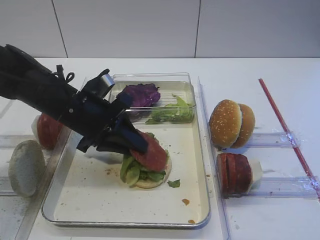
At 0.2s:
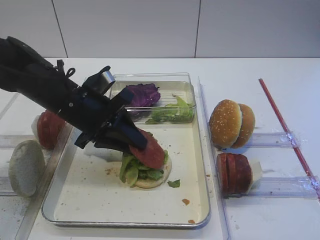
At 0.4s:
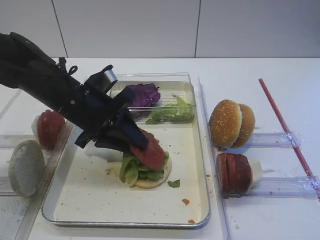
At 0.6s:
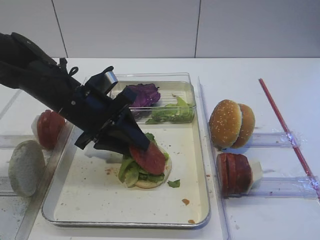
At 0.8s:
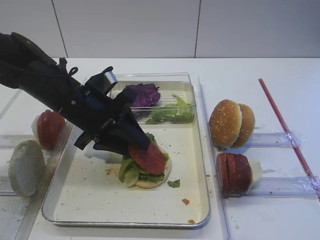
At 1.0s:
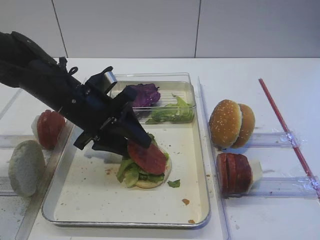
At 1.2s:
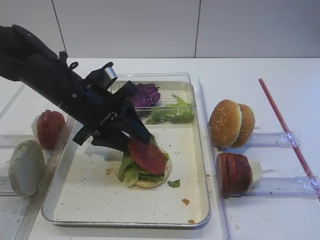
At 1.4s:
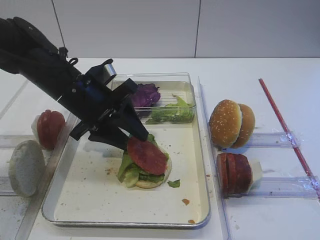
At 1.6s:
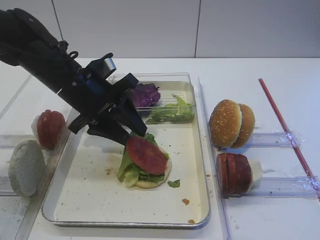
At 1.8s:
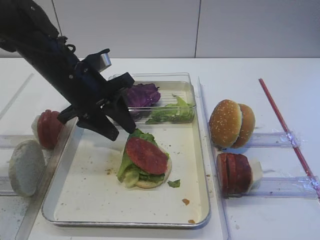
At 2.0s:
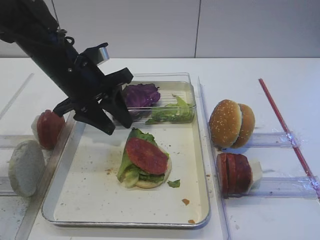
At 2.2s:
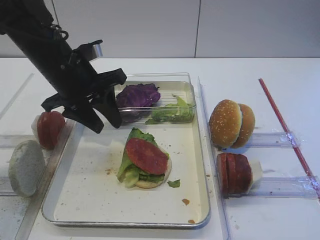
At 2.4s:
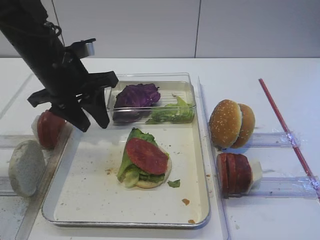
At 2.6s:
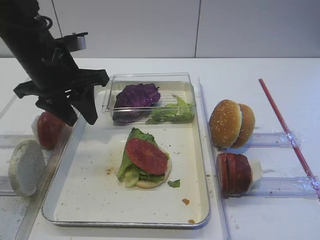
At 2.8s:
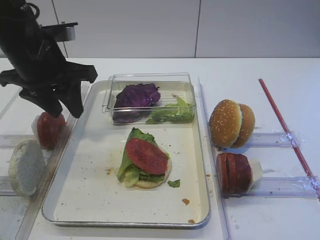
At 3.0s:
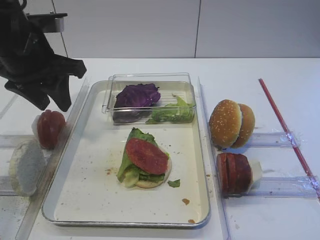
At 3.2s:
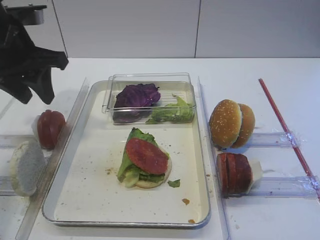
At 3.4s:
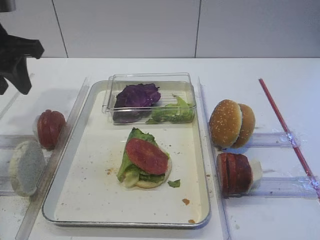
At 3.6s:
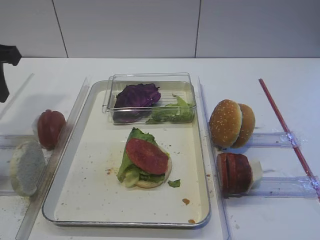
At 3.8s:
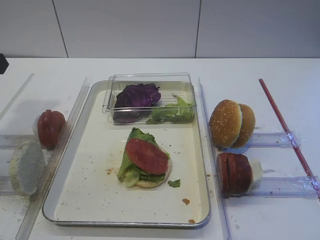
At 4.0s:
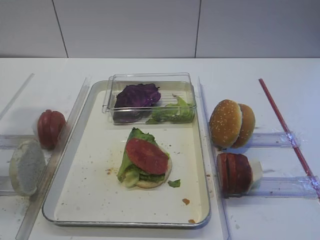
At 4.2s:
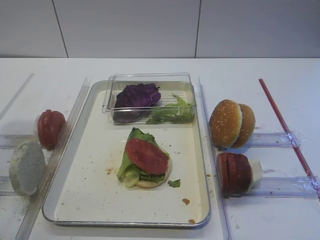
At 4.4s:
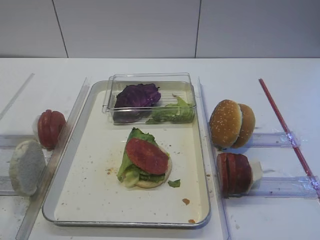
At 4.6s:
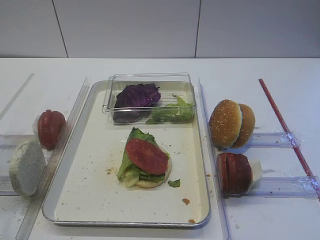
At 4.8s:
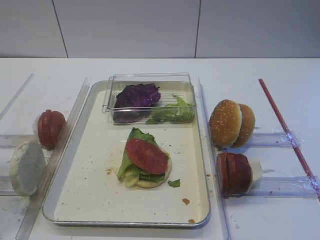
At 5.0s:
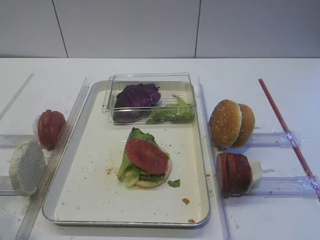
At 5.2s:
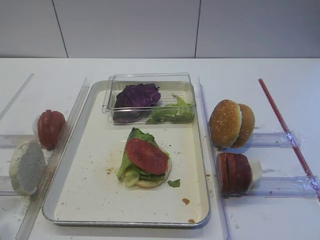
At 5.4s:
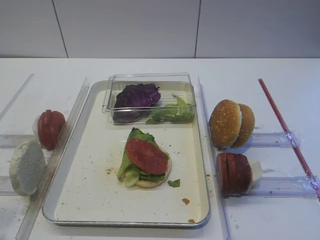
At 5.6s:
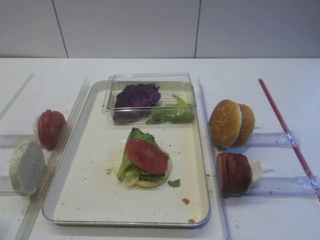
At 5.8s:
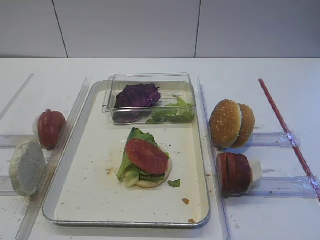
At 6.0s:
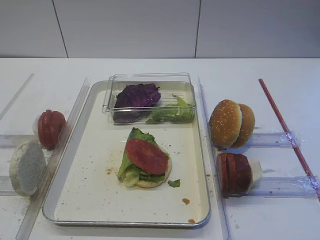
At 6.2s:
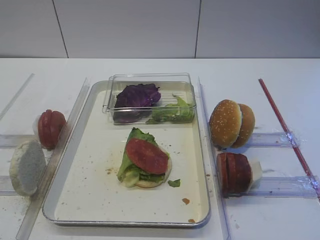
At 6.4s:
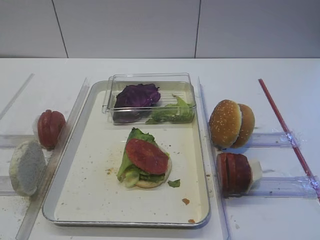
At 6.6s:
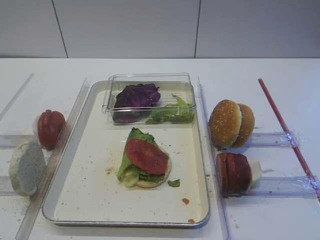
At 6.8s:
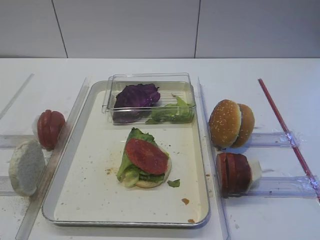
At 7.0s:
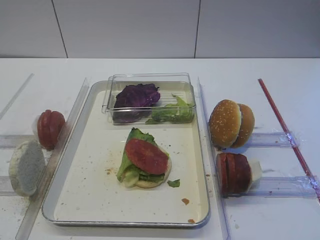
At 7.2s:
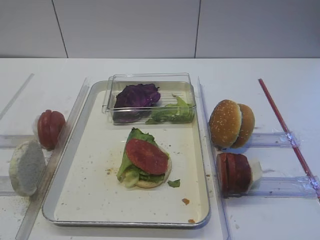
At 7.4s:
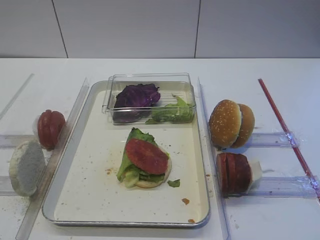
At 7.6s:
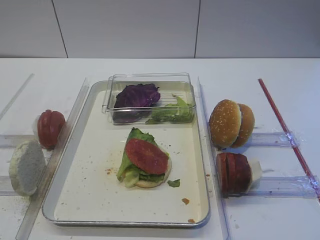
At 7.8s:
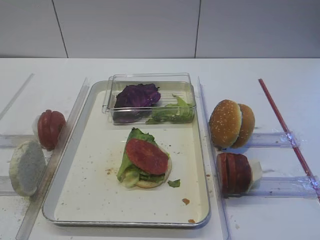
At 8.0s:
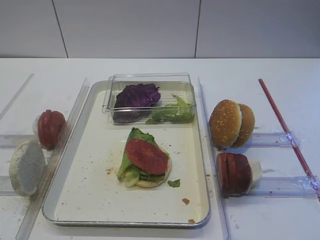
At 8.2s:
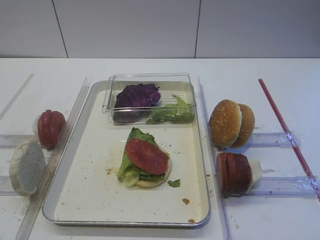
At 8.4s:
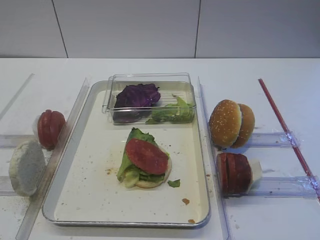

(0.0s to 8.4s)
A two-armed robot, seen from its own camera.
Step, 0.0s - 2.0s: Place the tomato slice on the lettuce leaf with the left gripper.
0.0s - 1.4s: The left gripper opens its fingers.
1.4s - 2.8s: The left gripper moves upward and to the left, roughly 10 cm.
2.8s - 4.2s: The left gripper is displaced backward and to the left by approximately 15 cm.
4.2s - 5.6s: The left gripper travels backward by approximately 15 cm.

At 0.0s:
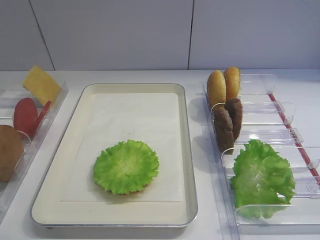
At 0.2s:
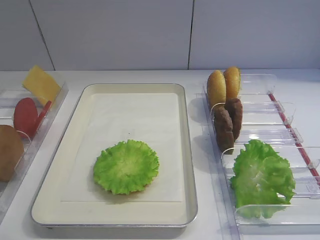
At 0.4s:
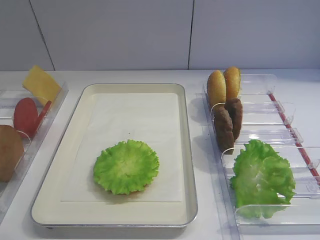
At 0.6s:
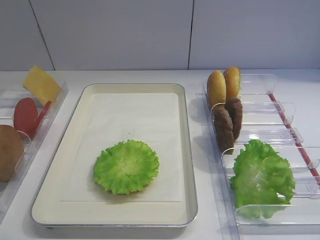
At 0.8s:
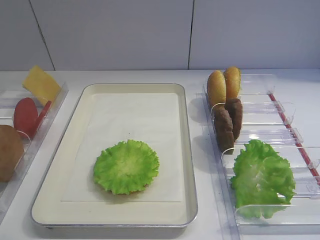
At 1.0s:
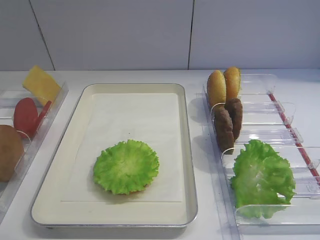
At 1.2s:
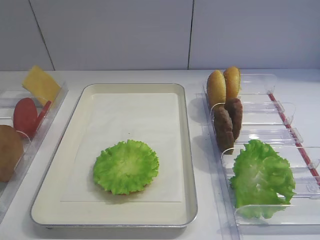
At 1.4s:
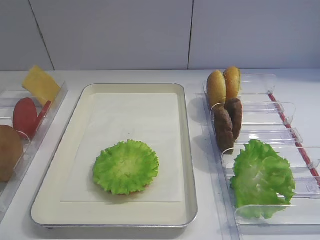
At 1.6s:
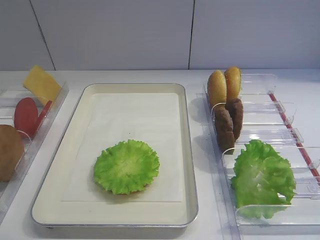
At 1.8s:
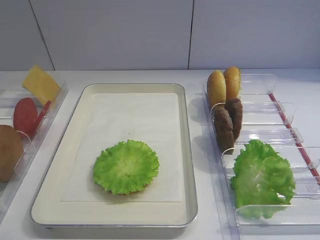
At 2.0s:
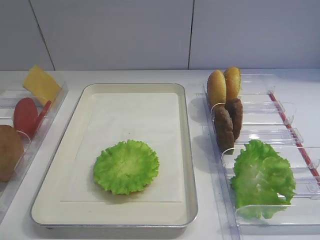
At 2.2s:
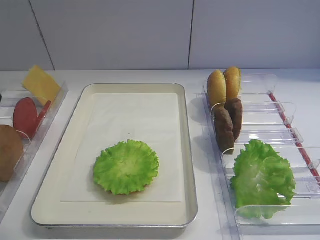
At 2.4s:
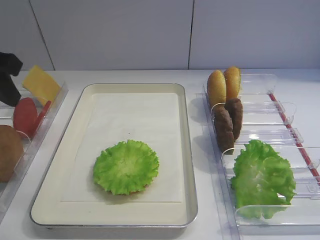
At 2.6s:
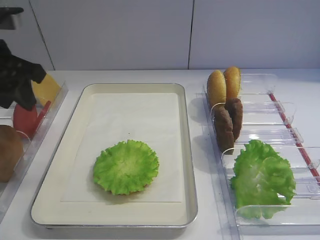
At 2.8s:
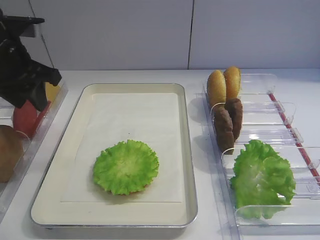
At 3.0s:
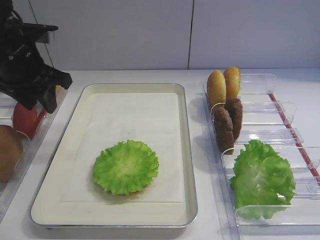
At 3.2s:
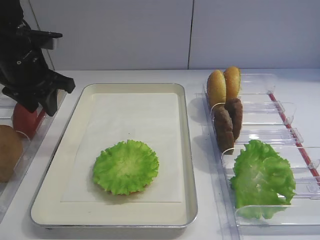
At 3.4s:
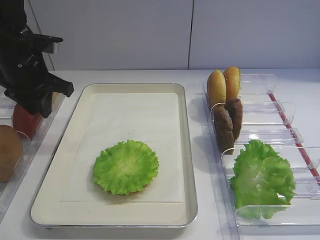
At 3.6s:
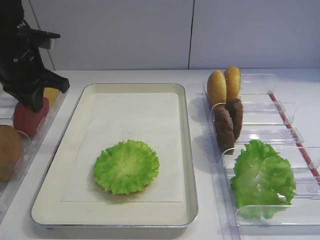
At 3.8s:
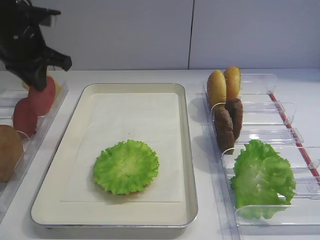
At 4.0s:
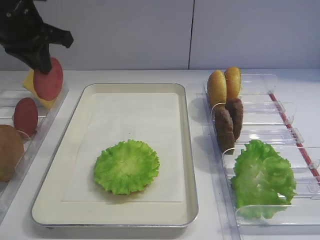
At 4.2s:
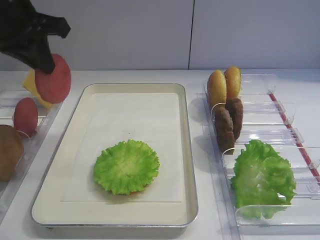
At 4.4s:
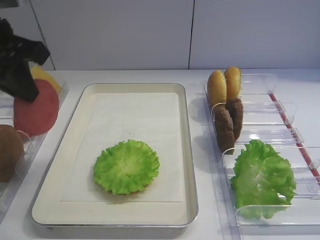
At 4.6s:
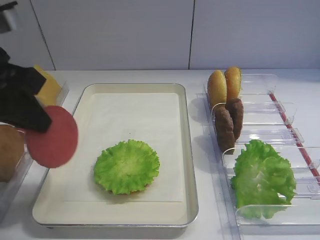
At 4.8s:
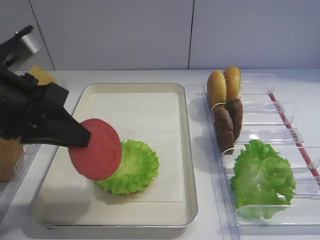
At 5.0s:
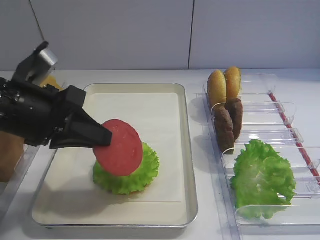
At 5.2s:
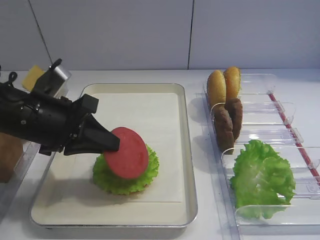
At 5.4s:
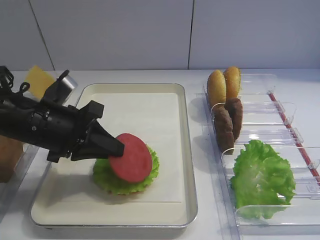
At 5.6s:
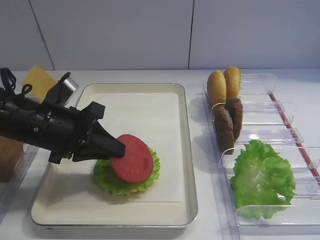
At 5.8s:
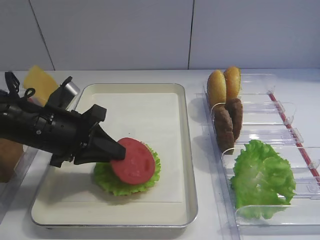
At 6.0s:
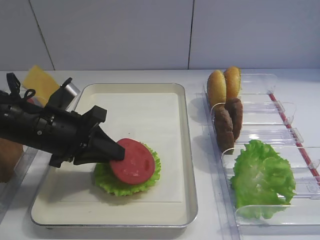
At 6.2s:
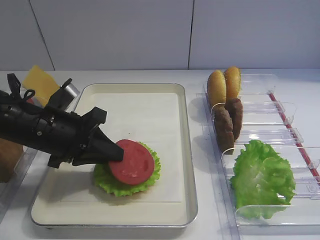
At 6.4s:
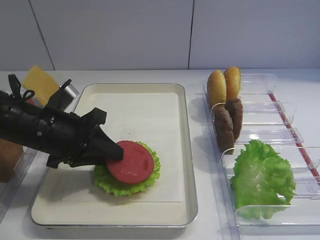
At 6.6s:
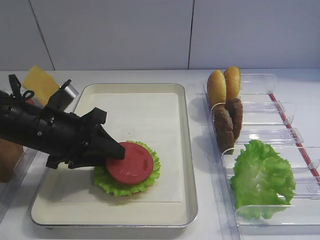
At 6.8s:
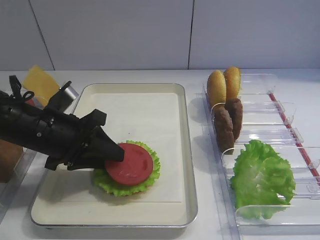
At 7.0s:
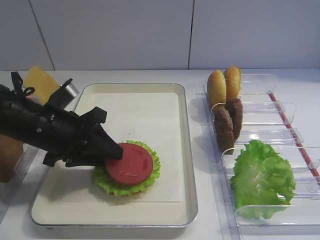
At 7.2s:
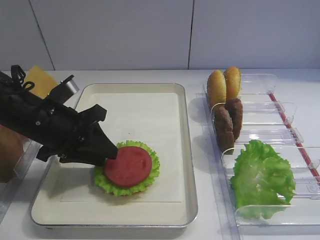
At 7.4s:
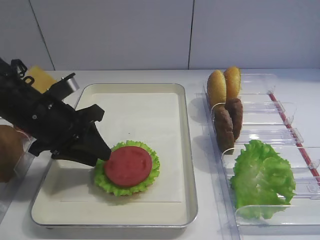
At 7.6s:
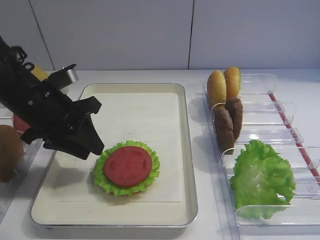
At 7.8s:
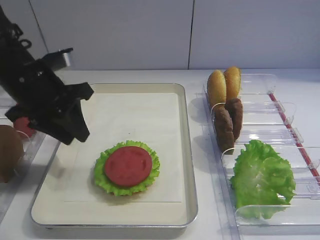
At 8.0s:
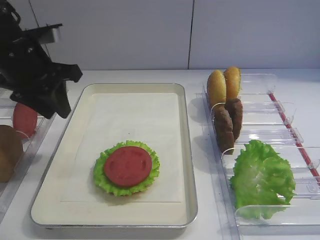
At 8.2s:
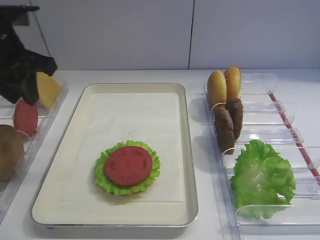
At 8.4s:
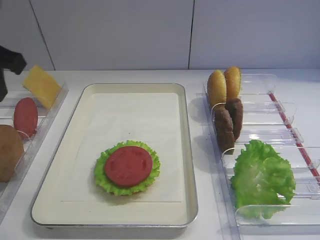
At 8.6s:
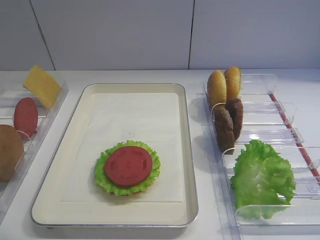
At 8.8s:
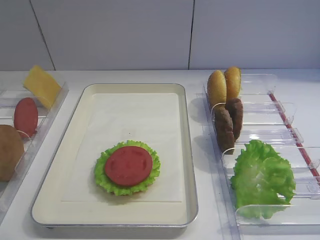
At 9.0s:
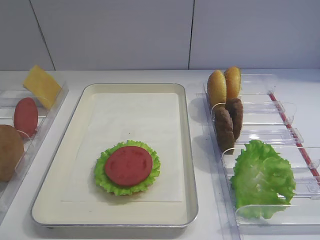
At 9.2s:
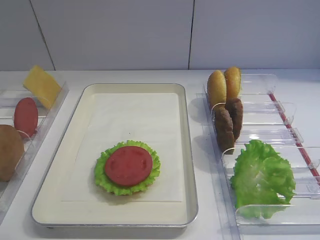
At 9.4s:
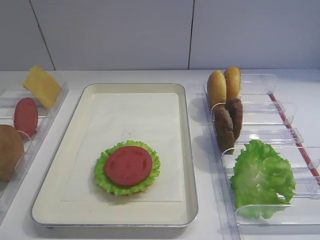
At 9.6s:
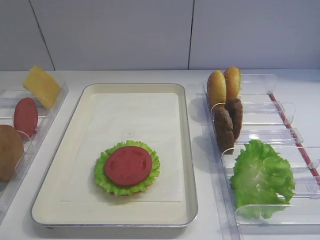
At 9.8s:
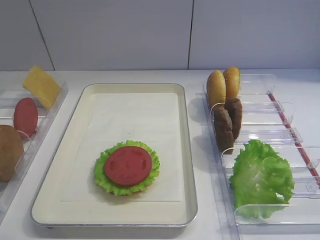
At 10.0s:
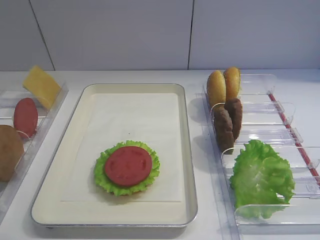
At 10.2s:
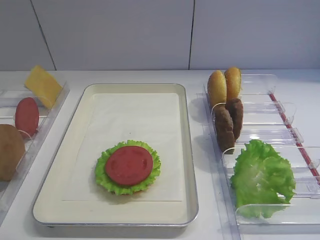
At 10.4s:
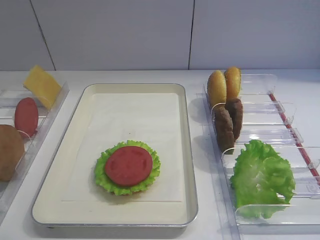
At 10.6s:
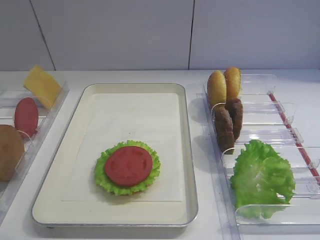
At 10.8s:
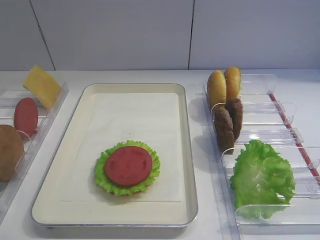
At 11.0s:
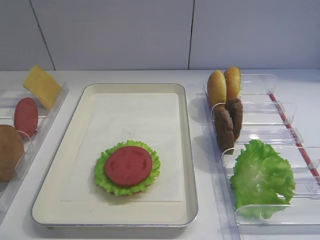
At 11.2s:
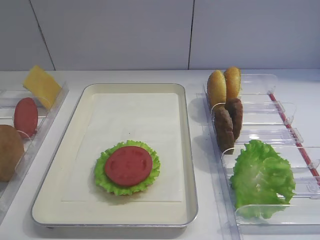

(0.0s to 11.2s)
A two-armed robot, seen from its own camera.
Step, 0.0s - 3.8s: Pick up the tomato slice with the left gripper.
Step, 4.0s - 7.2s: Place the tomato slice on the lettuce leaf with the left gripper.
1.6s - 3.2s: The left gripper moves forward, roughly 30 cm.
3.2s - 4.8s: The left gripper goes roughly 15 cm backward, and closes its fingers.
4.8s - 6.4s: The left gripper shifts about 10 cm downward and forward, and opens its fingers.
6.4s - 8.0s: The left gripper goes roughly 15 cm upward and forward.
8.0s - 9.6s: The left gripper heads backward, covering some 35 cm.

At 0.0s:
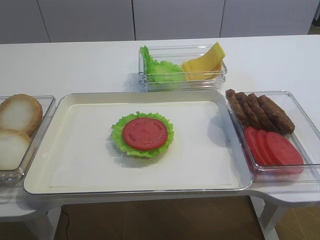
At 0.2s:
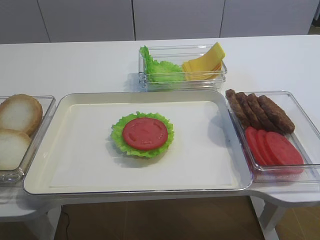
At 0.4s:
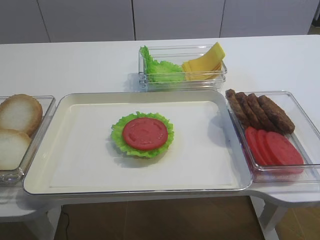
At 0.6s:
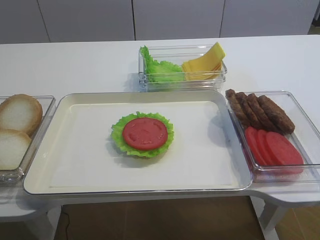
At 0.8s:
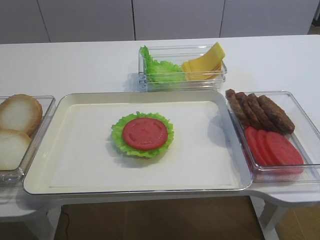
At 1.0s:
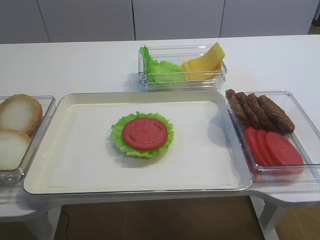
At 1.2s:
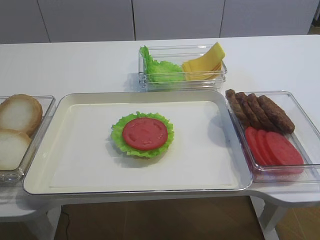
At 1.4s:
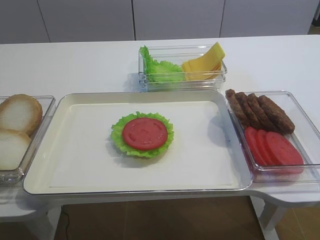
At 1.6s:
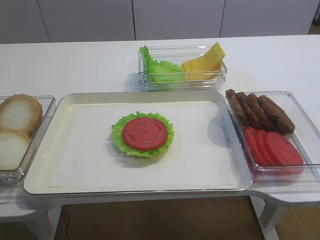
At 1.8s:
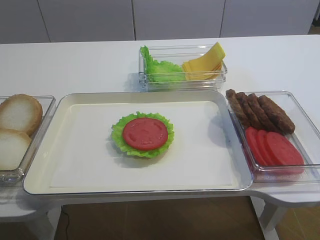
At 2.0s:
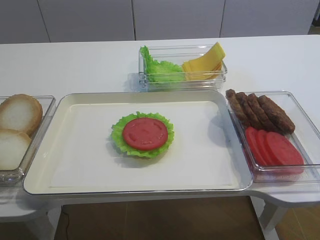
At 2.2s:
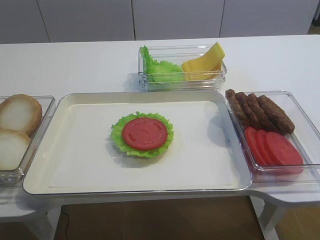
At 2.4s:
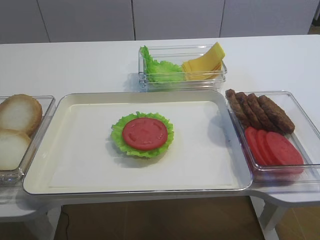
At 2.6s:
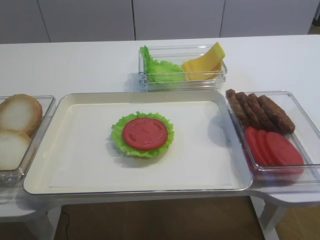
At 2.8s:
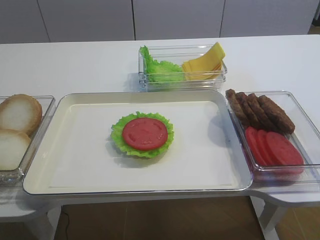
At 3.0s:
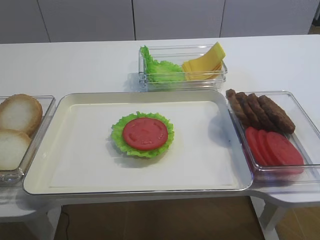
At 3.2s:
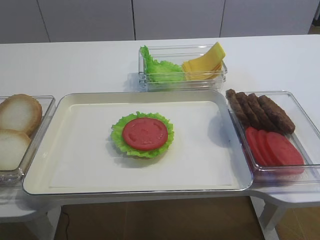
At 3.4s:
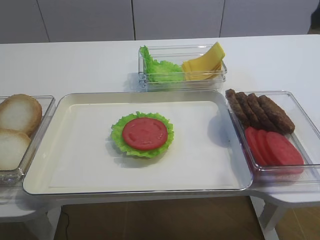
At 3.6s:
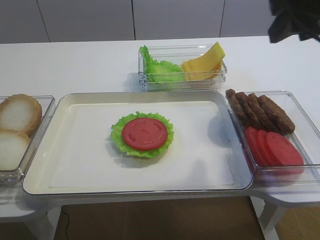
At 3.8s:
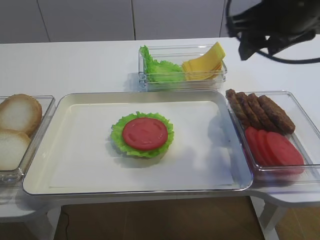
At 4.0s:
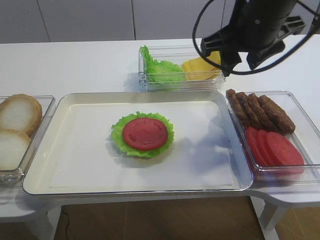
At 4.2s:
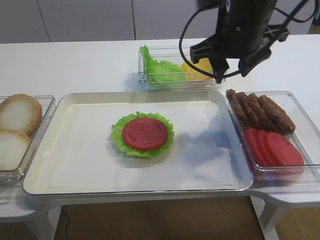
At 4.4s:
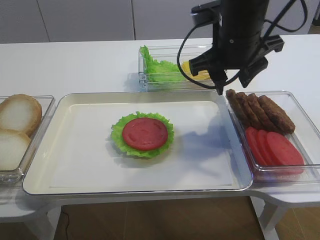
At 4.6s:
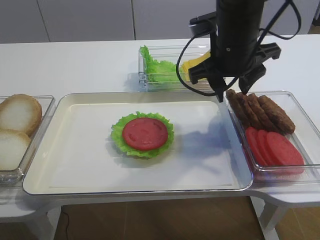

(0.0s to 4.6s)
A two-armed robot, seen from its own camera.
1.6s - 3.0s: The right gripper moves forward and upward, about 15 cm.
3.0s - 4.6s: The right gripper travels forward and to the left by about 25 cm.
